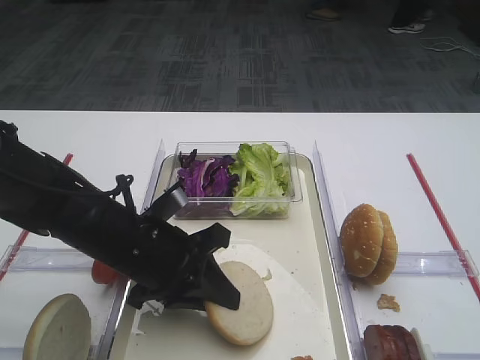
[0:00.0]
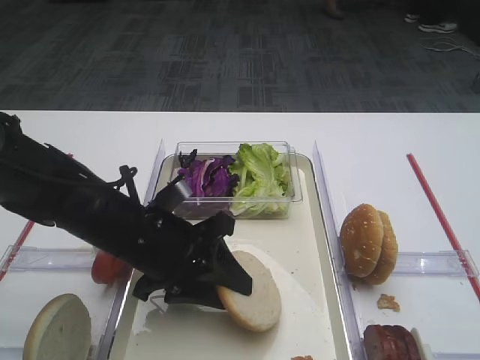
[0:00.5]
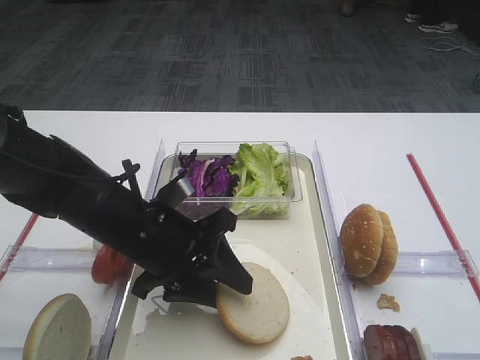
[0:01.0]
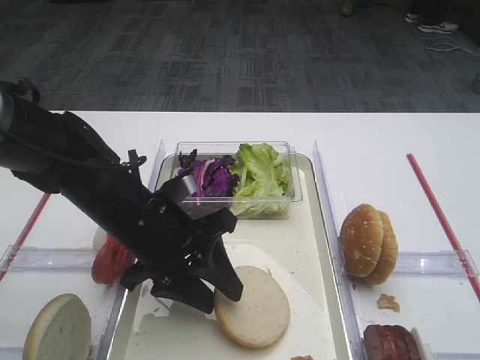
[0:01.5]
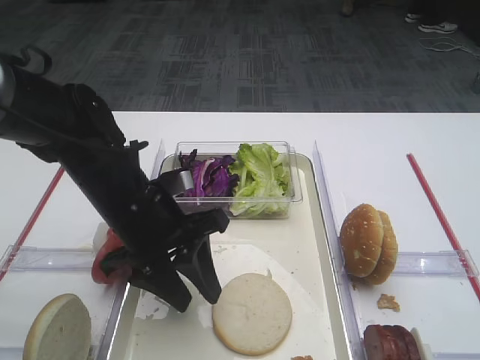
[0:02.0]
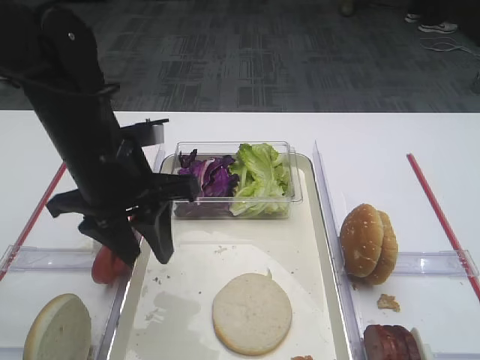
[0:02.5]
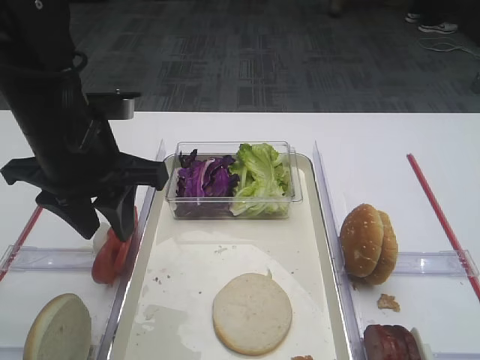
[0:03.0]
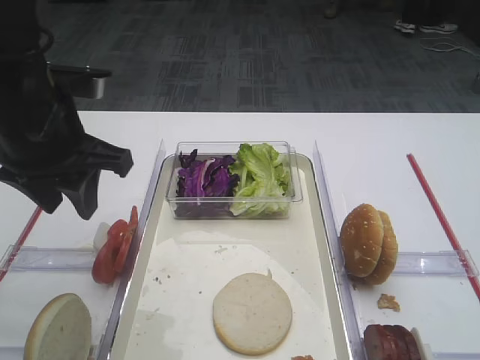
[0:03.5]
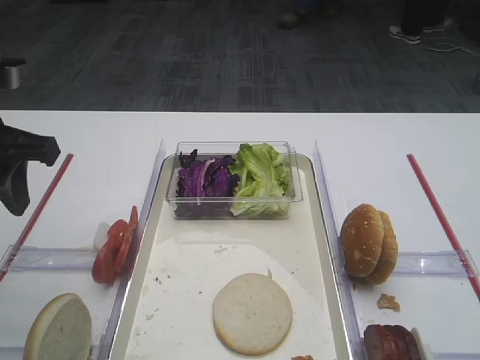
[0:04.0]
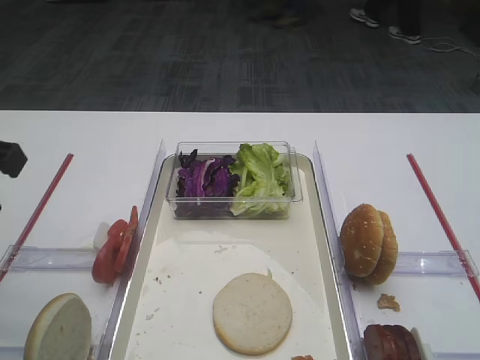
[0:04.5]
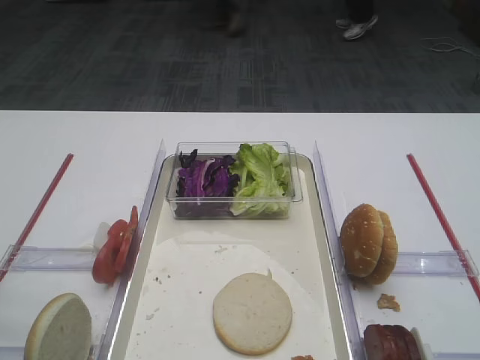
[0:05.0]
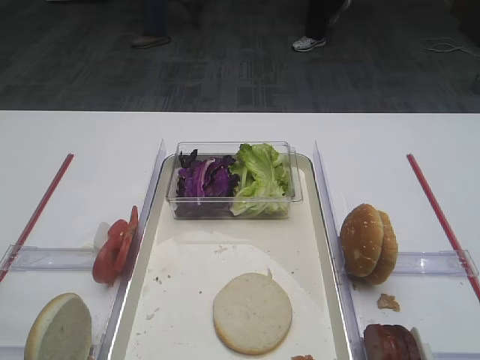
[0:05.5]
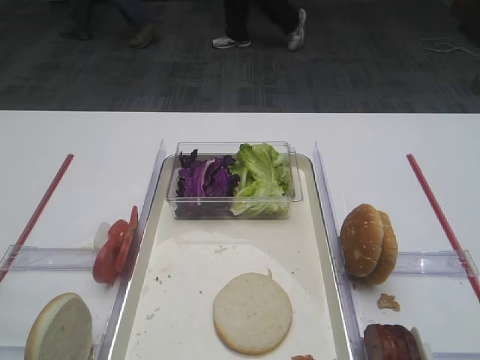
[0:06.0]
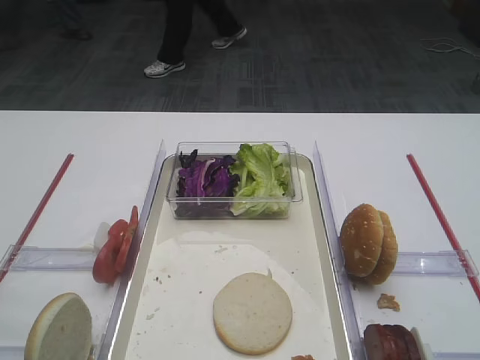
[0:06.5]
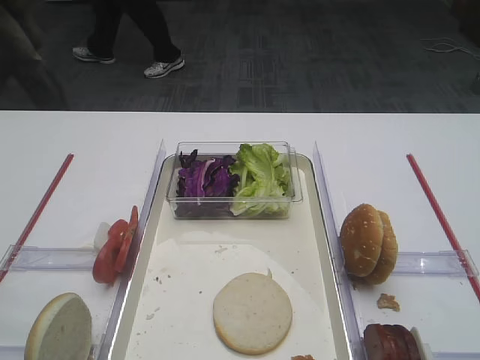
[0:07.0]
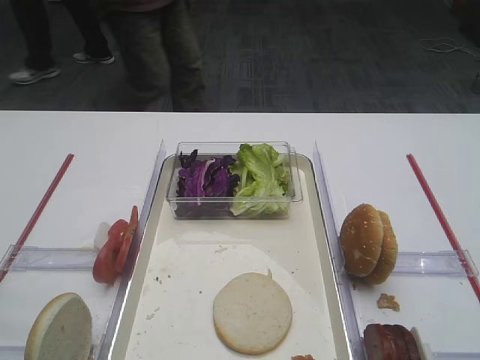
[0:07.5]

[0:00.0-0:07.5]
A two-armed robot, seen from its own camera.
0:00.0 to 0:02.0: The left gripper opens up.
0:02.0 to 0:04.0: The left gripper moves to the left and upward, some 20 cm.
0:04.0 to 0:05.5: The left gripper moves backward, about 20 cm.
0:05.5 to 0:07.5: The left gripper changes place by about 5 cm.

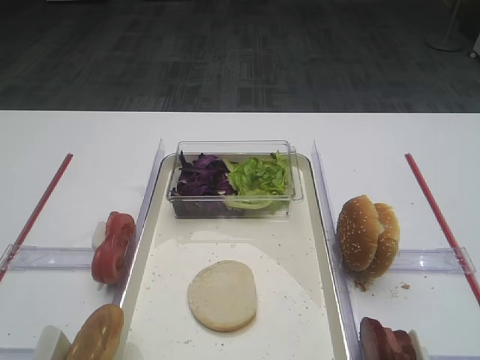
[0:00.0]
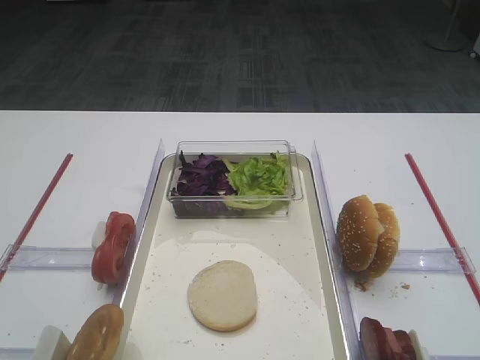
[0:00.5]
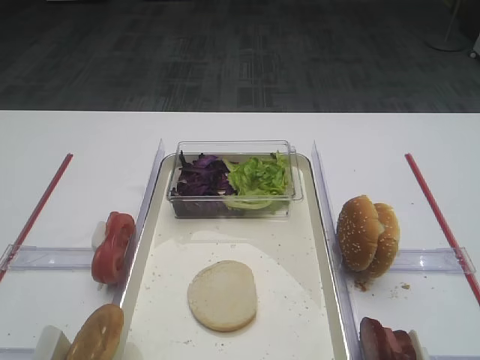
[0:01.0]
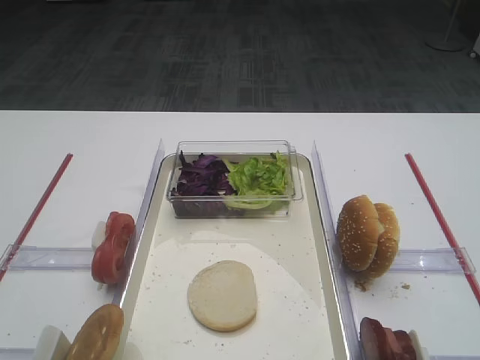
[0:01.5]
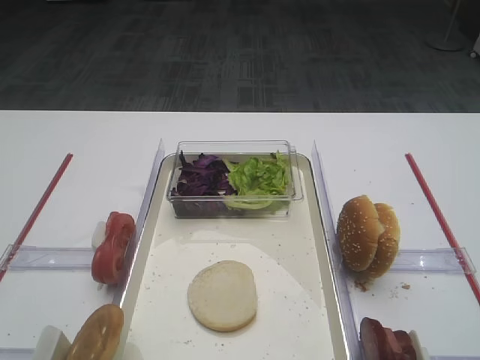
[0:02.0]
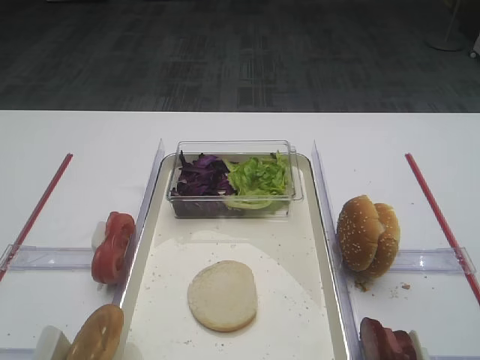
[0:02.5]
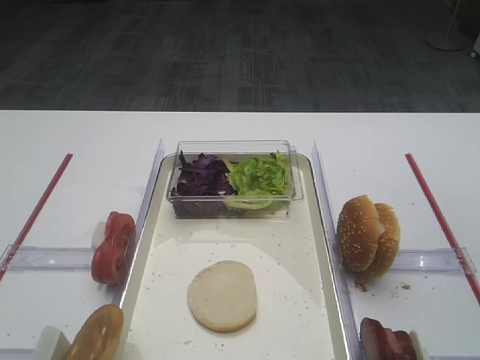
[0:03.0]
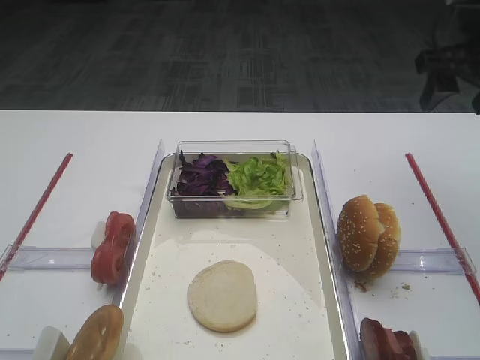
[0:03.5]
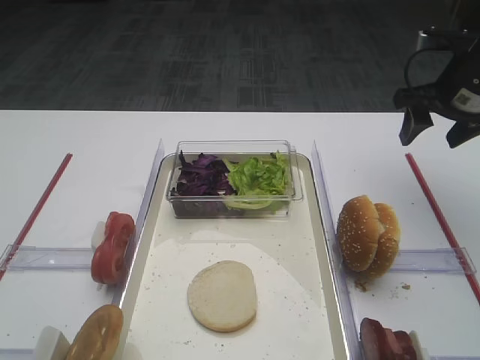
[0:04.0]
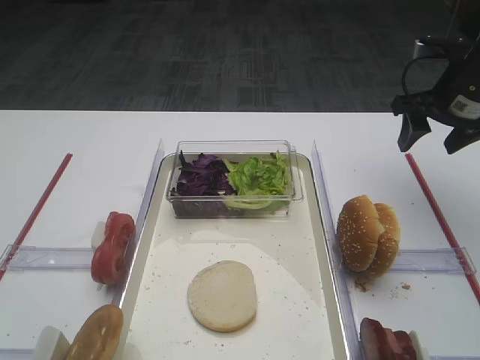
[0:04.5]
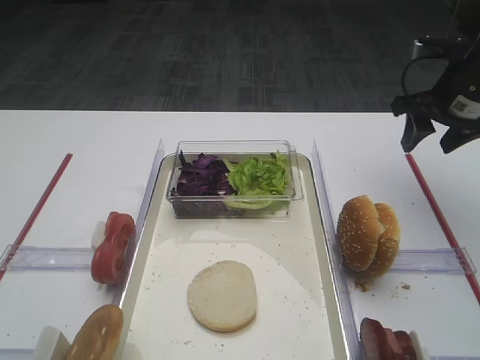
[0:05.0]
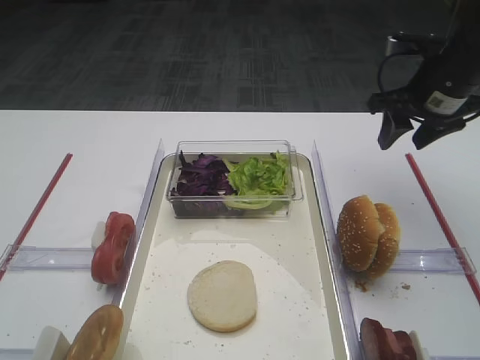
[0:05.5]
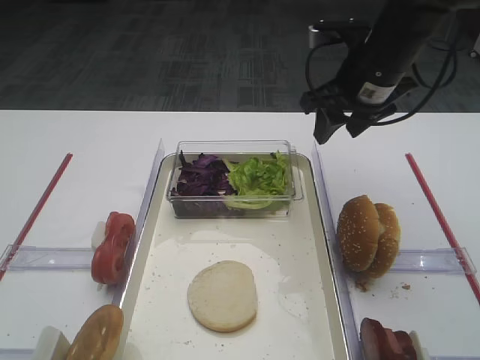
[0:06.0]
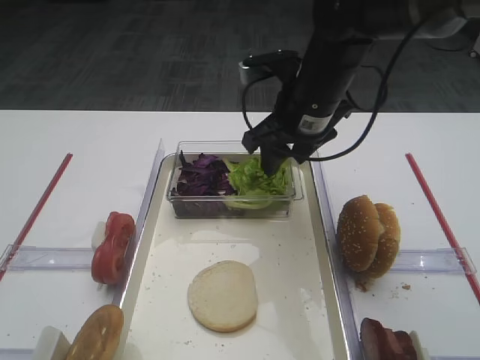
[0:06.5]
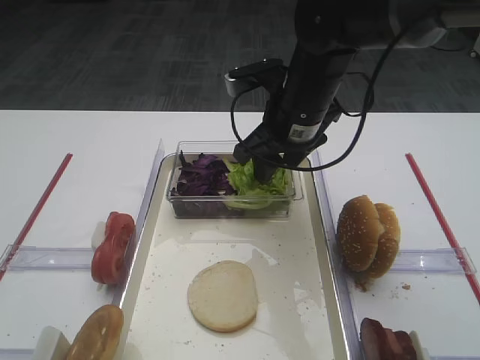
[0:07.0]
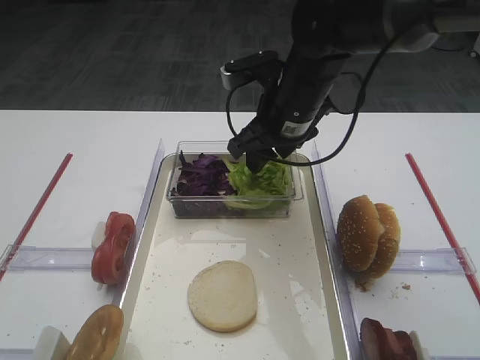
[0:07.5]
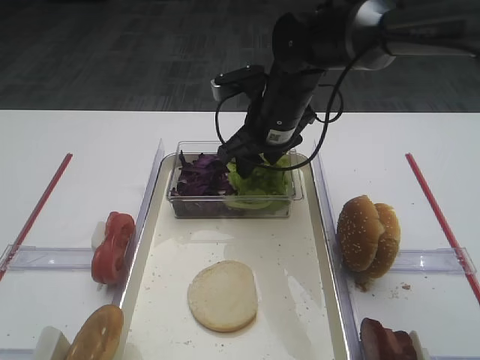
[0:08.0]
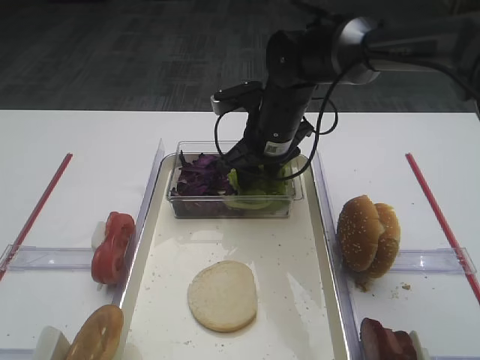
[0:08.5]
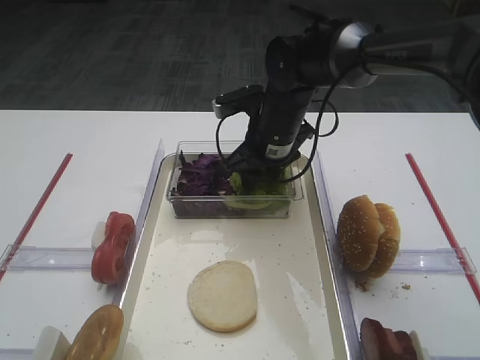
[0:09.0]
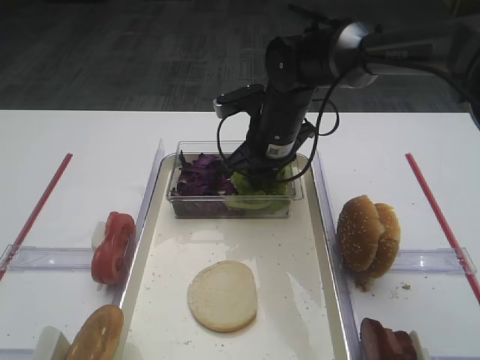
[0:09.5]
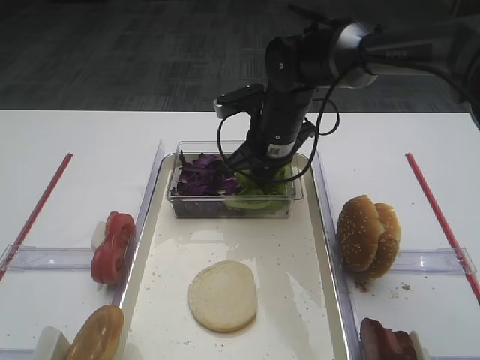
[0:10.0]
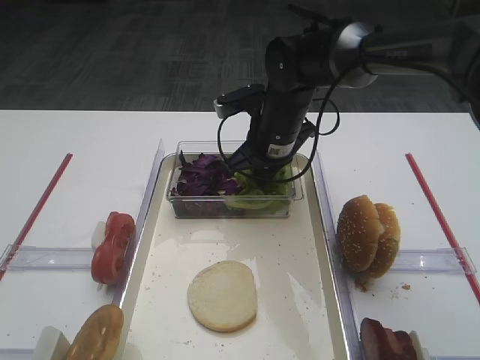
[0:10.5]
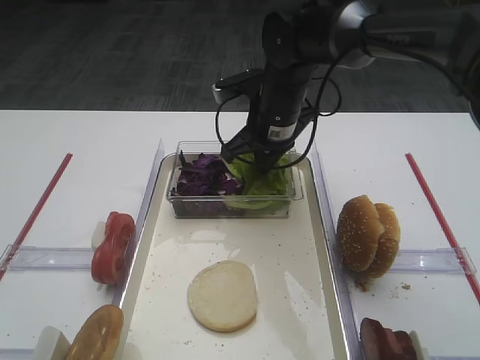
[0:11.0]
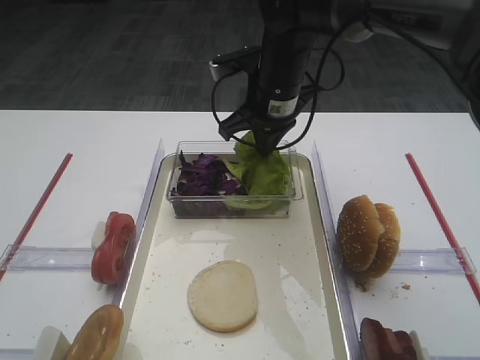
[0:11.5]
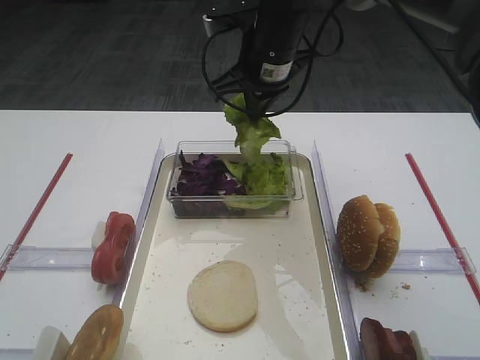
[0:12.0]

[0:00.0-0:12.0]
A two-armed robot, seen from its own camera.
0:02.0 to 0:04.0: The right gripper heads forward, covering some 35 cm.
0:04.0 to 0:06.0: The right gripper is displaced to the left by roughly 10 cm.
0:06.0 to 0:08.0: The right gripper heads to the left and downward, covering roughly 15 cm.
0:08.0 to 0:10.0: The right gripper closes.
0:10.0 to 0:12.0: The right gripper moves upward, some 10 cm.

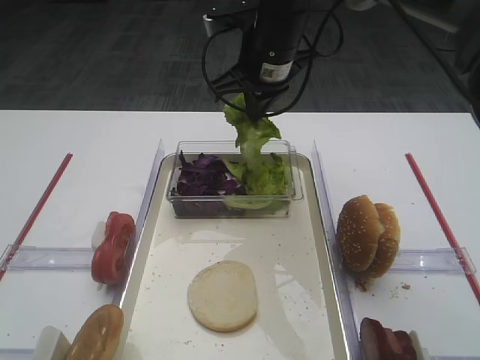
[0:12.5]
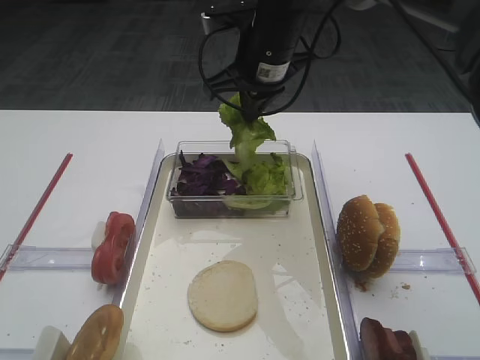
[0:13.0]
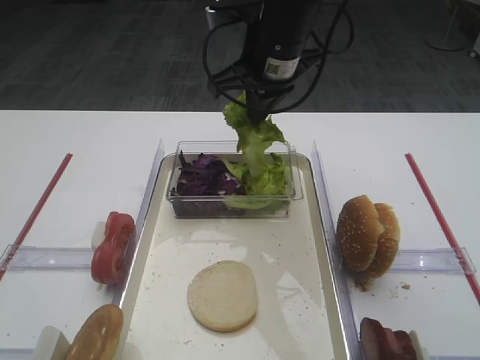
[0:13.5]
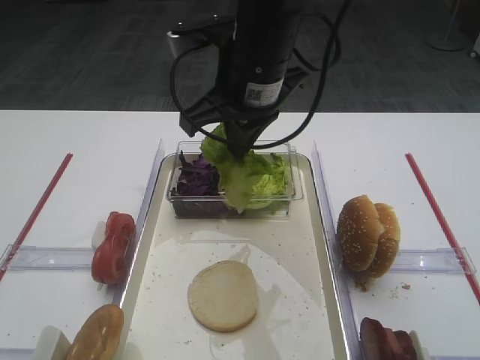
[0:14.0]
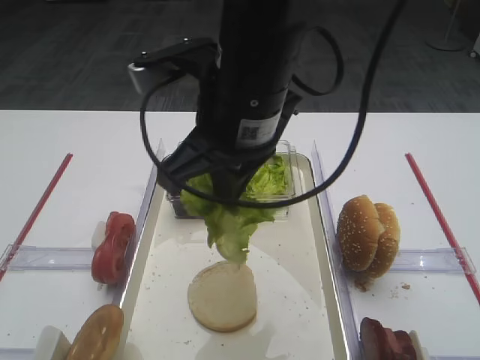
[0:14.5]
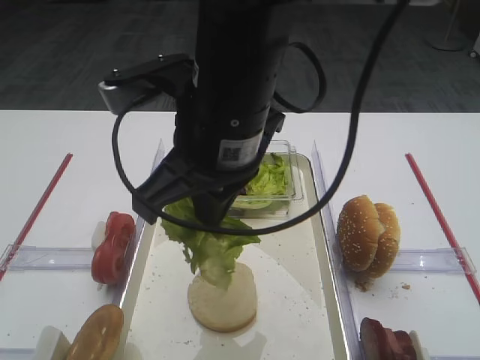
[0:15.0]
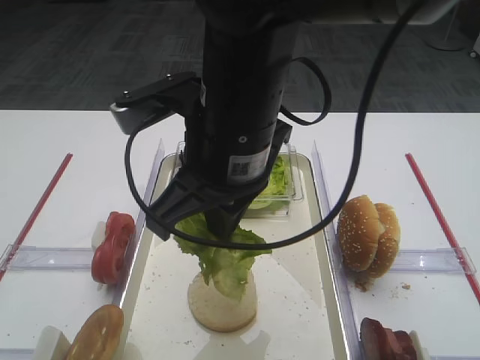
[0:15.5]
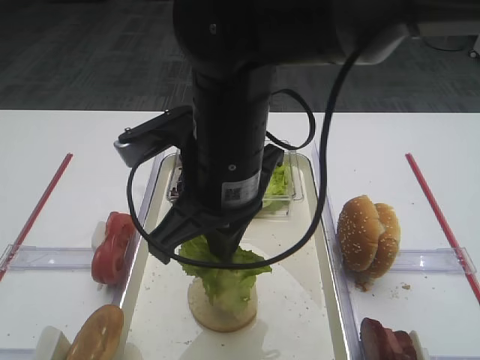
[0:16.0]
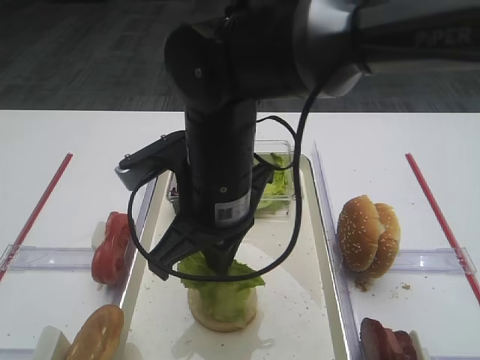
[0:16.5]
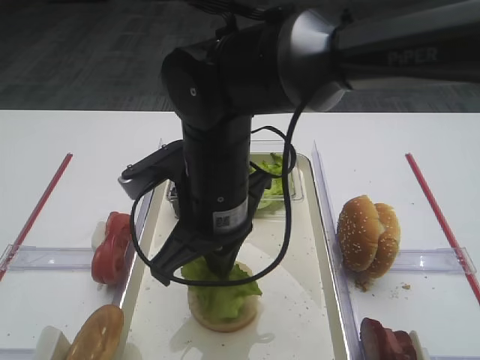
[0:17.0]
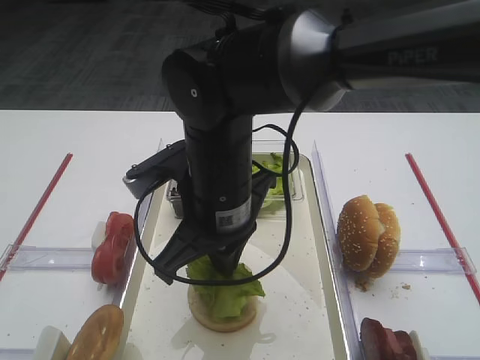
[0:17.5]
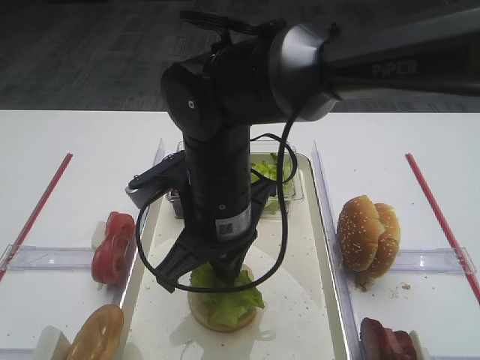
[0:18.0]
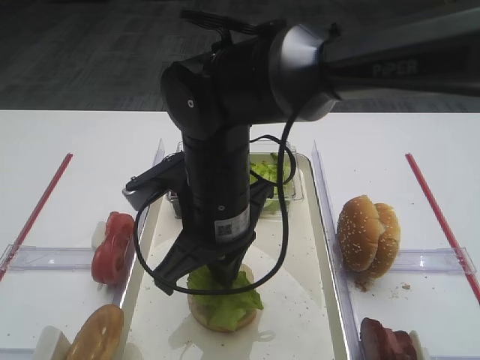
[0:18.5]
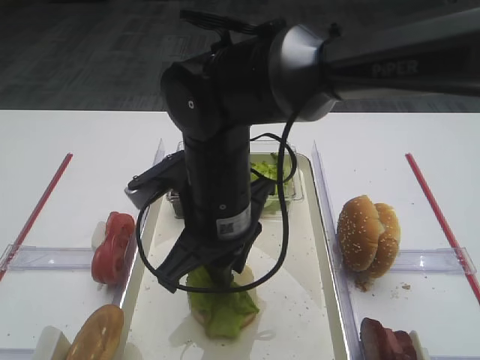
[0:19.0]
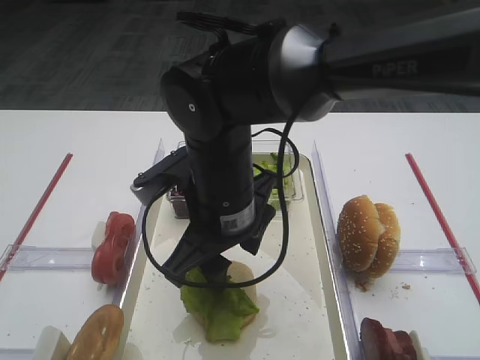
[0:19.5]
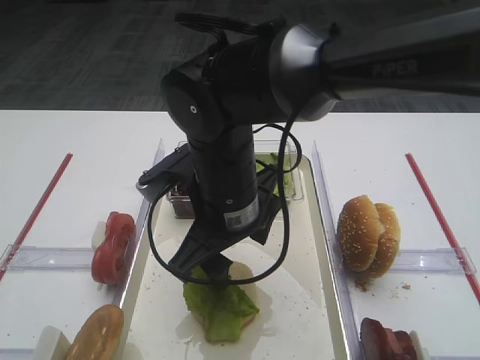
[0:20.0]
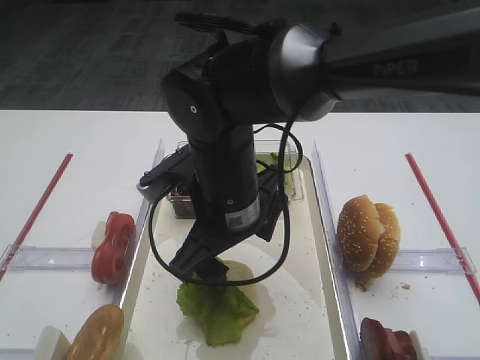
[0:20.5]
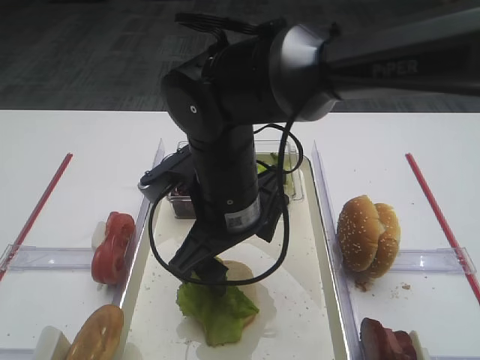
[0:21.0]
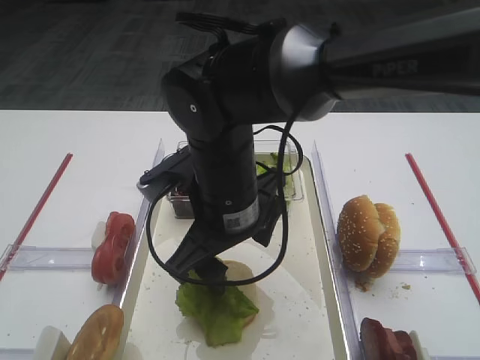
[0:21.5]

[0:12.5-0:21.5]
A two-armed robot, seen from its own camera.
0:12.5 to 0:14.5: The right gripper goes about 15 cm backward.
0:14.5 to 0:17.0: The right gripper travels downward by about 10 cm.
0:17.0 to 0:19.5: The right gripper opens.
0:19.5 to 0:21.5: The two grippers keep their place.
